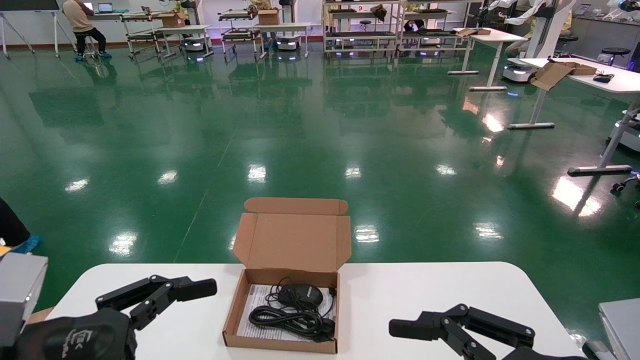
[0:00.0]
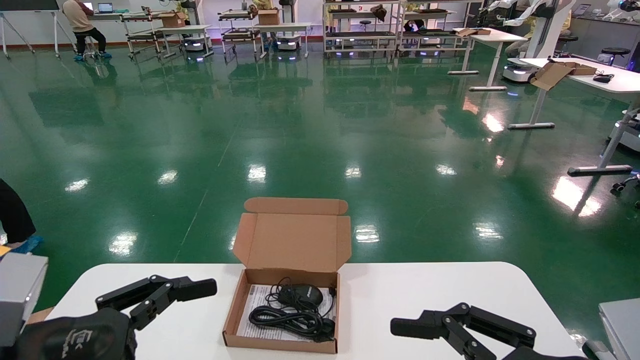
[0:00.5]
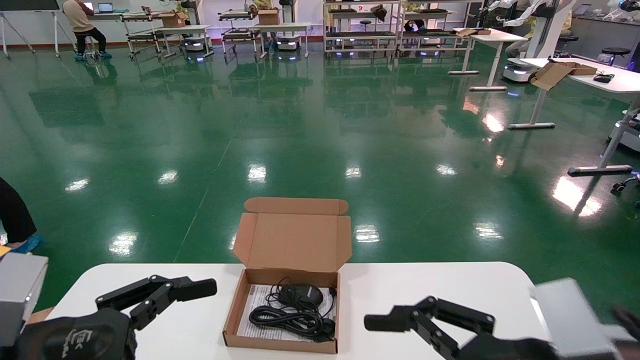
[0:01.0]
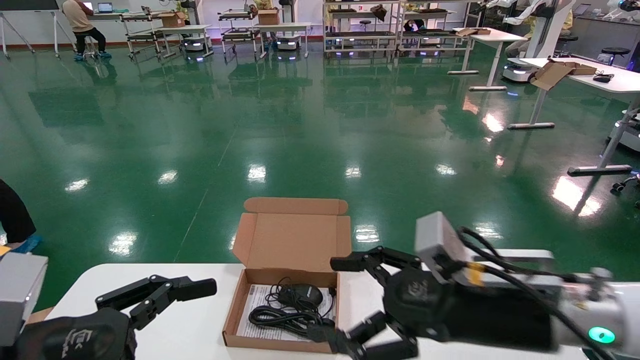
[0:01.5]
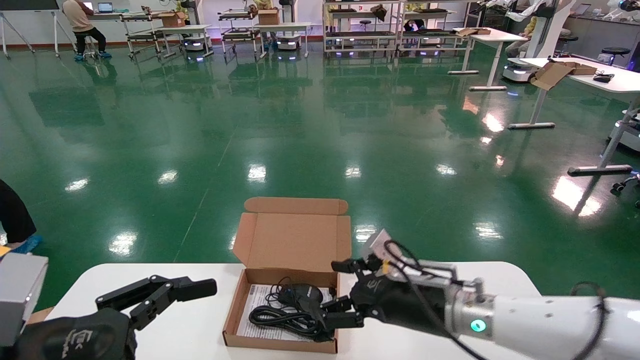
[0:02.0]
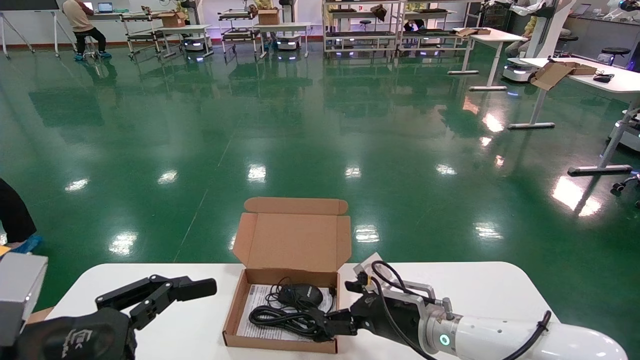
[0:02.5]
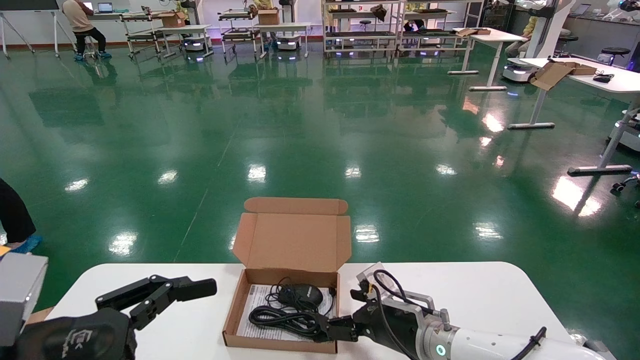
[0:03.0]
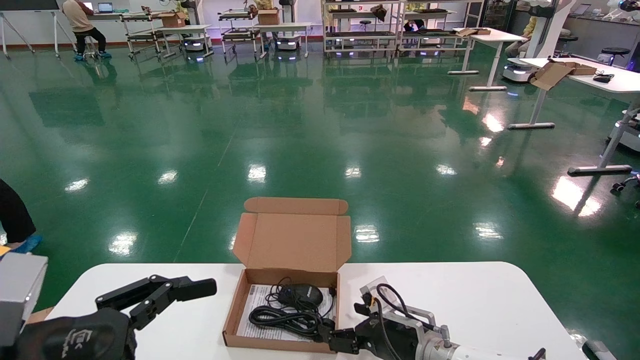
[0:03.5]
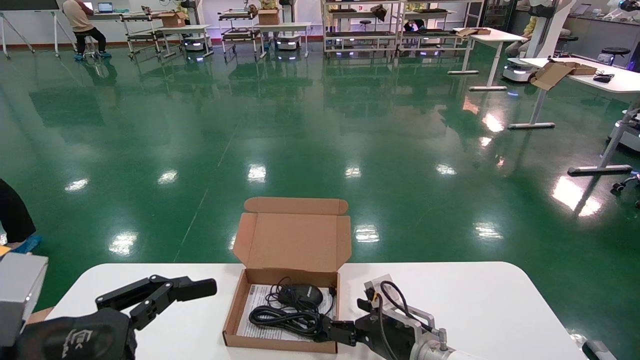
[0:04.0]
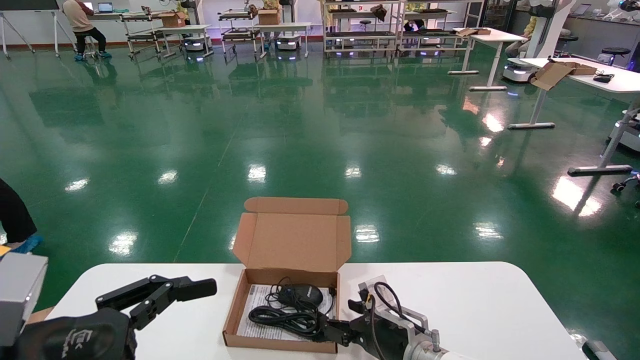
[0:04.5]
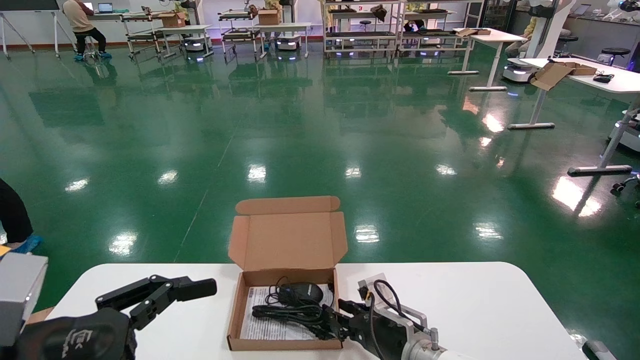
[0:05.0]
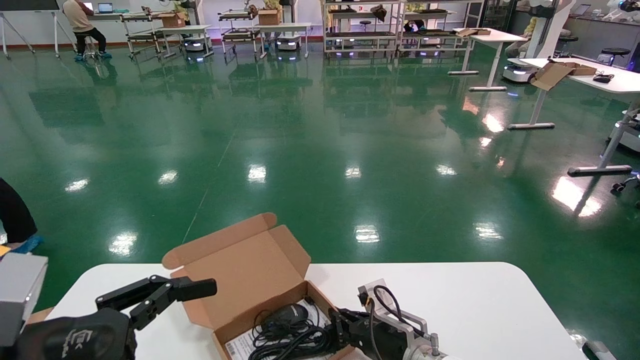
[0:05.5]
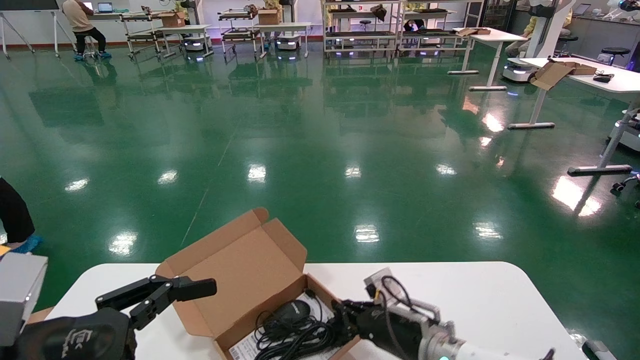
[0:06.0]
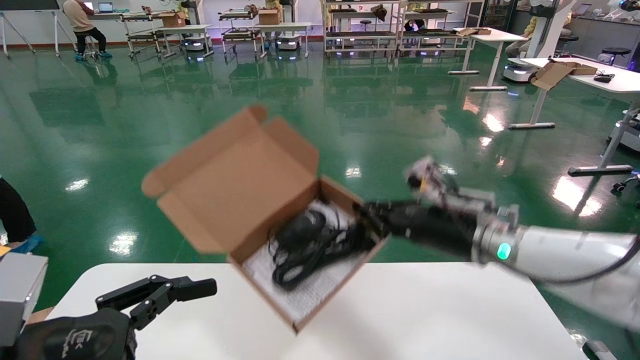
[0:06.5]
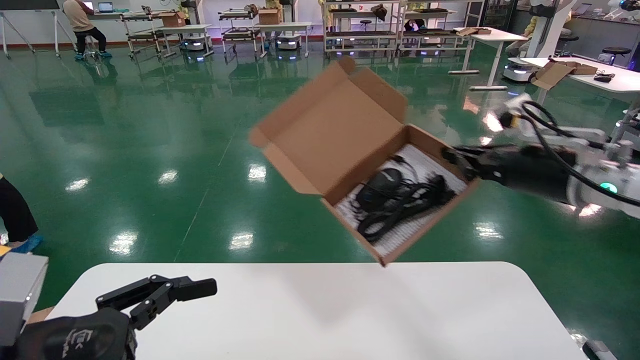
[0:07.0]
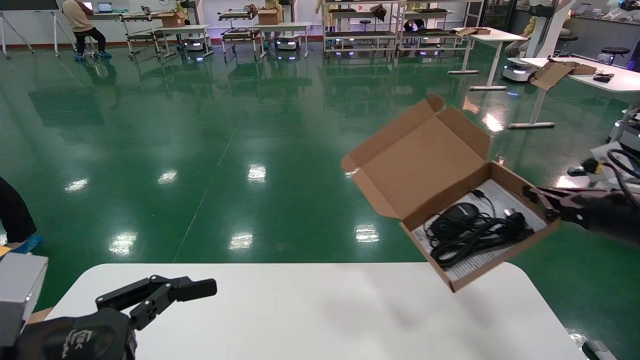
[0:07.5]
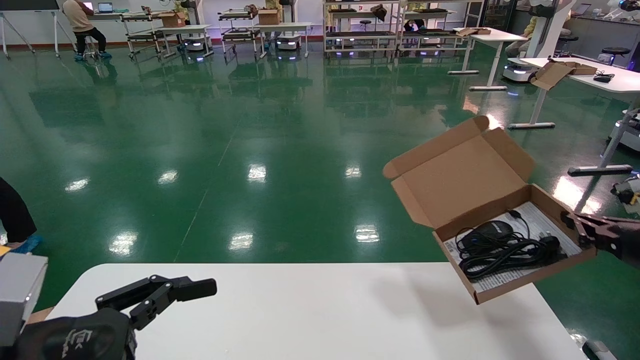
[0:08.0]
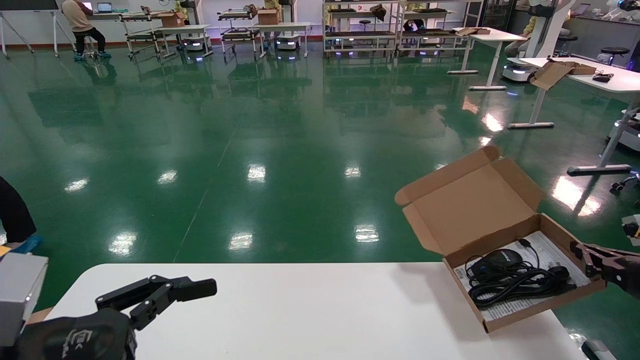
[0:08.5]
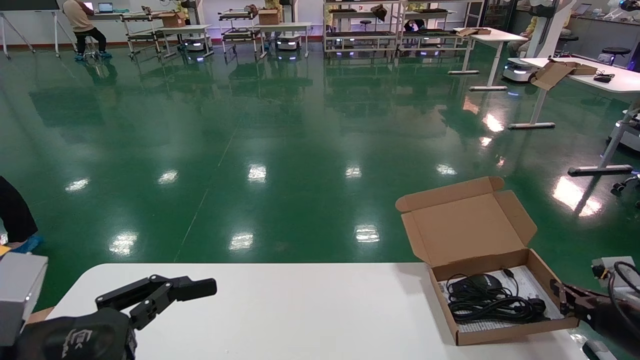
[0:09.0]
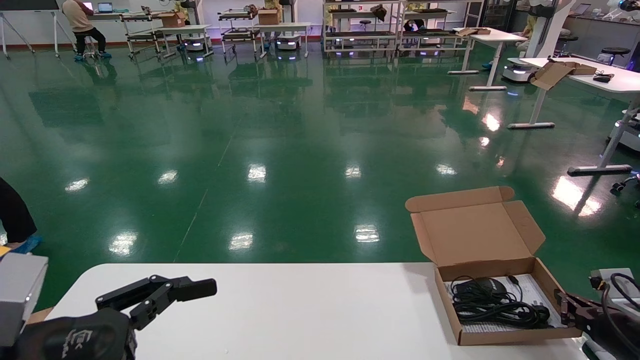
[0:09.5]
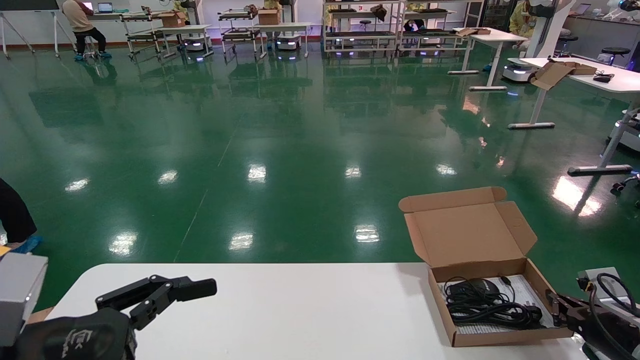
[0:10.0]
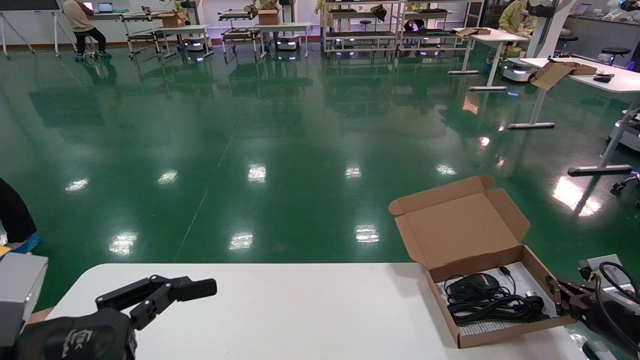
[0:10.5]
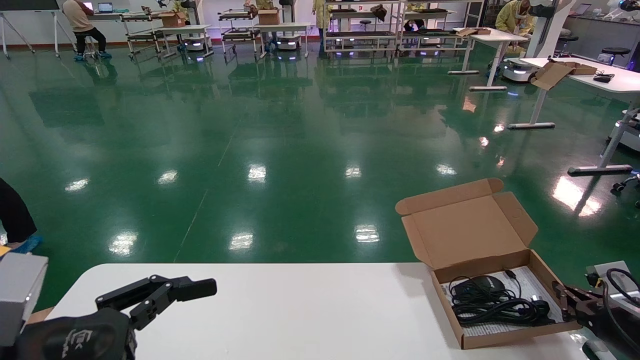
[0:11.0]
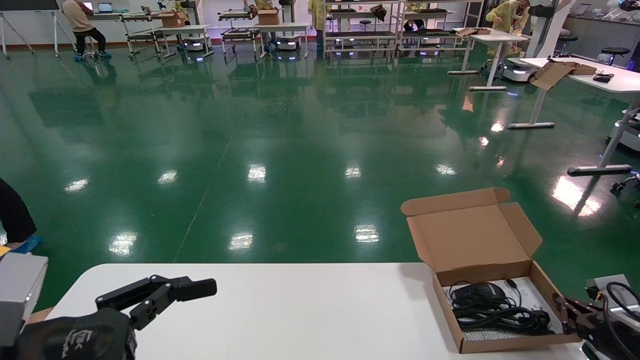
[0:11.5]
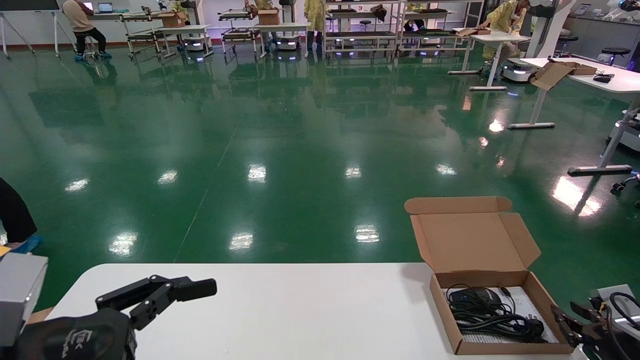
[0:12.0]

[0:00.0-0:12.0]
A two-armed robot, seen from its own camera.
Task of the whole recording: move the position of the storage box with accessories on the table.
Step, 0:01.5 to 0:05.5: Grab and pick up the open mouse box from the accessory packaging area.
Step, 0:06.0 to 0:12.0: Place the open mouse box onto the operation table.
0:00.0 to 0:02.0: The right gripper shifts some 25 cm forward and to the left.
0:02.0 to 0:04.0: The right gripper travels downward and forward by about 15 cm.
0:04.0 to 0:06.0: The right gripper closes its fingers.
0:06.0 to 0:08.0: The right gripper moves to the right, roughly 30 cm.
0:08.0 to 0:10.0: The right gripper shifts about 15 cm downward.
0:10.0 to 0:12.0: The grippers move only a little.

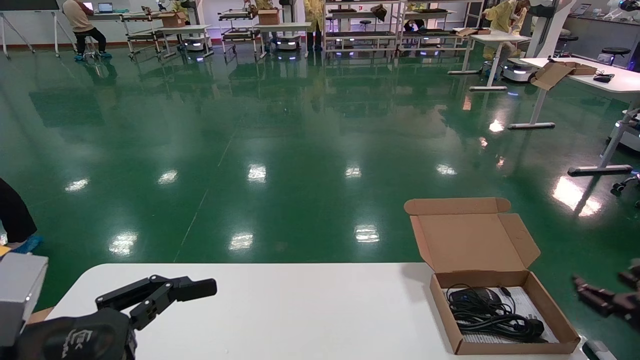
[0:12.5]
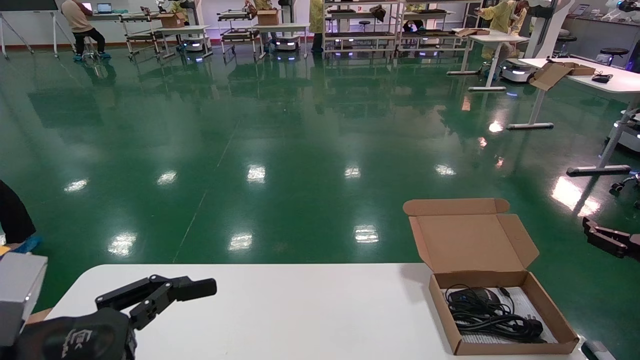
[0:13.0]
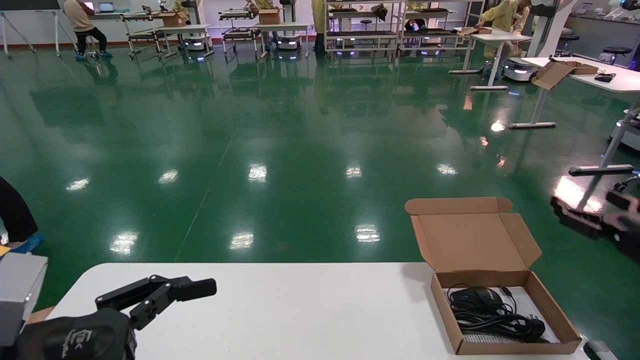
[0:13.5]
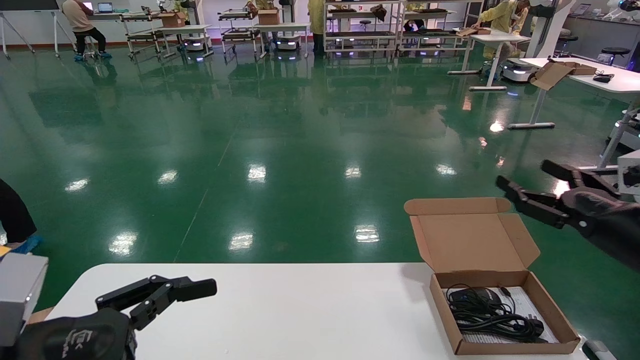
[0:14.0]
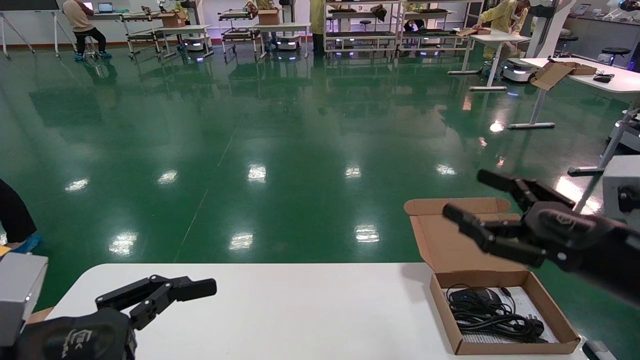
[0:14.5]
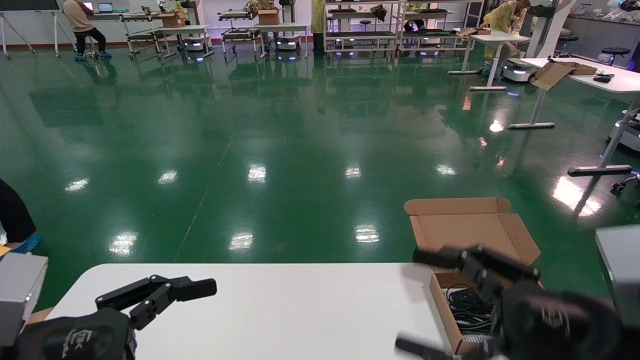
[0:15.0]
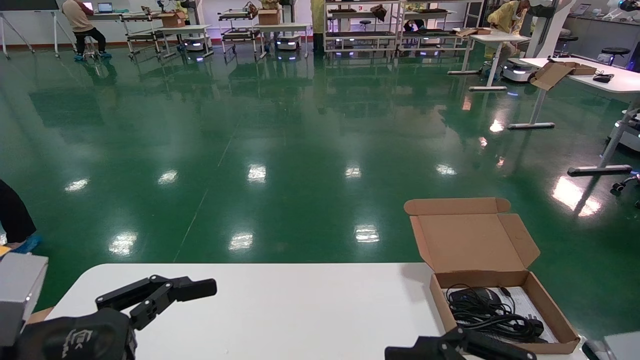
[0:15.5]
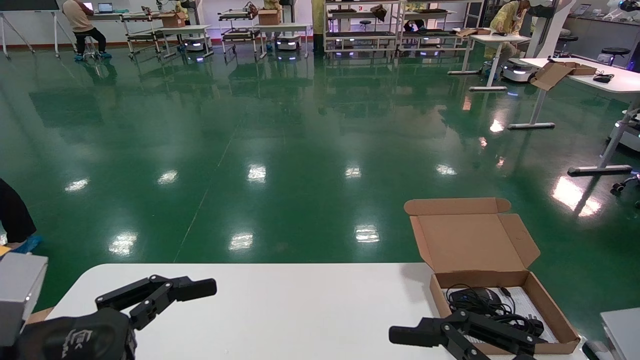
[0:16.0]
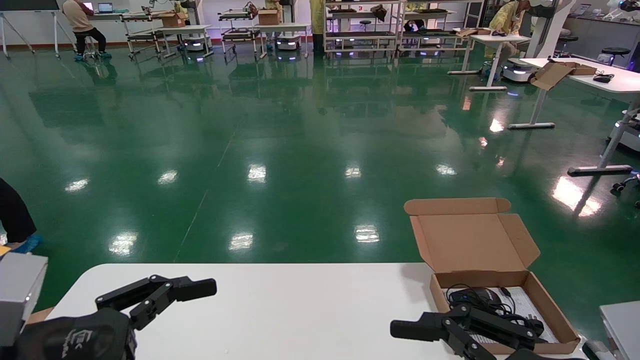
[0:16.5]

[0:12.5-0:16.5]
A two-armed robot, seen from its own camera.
Task of the whole recording: move the position of the storage box with accessories on the table.
0:12.5 to 0:14.5: The right gripper heads to the left, upward and backward, covering roughly 25 cm, and opens up.
0:14.5 to 0:16.5: The right gripper travels backward and to the left by about 15 cm.
